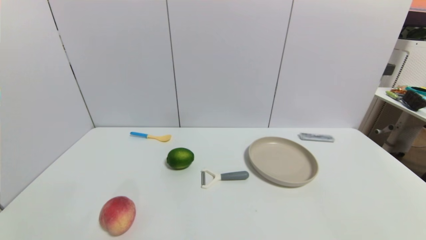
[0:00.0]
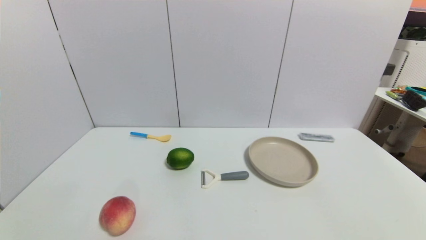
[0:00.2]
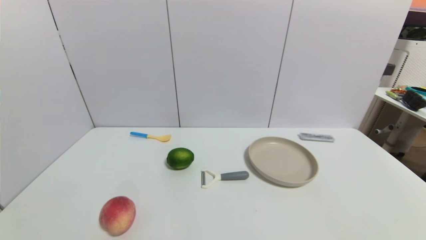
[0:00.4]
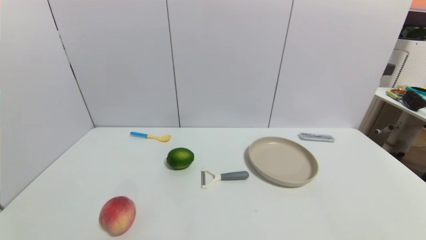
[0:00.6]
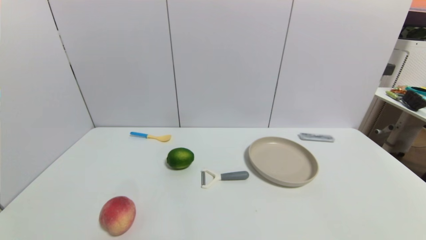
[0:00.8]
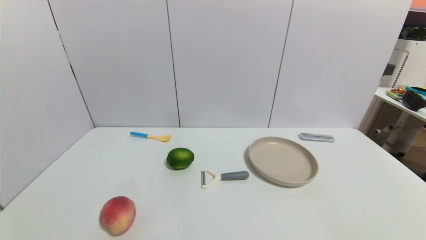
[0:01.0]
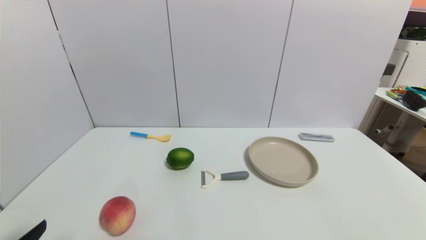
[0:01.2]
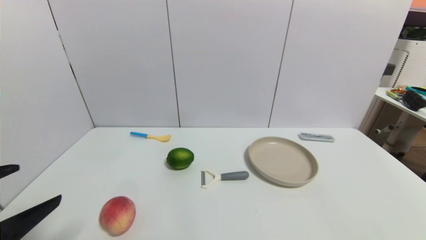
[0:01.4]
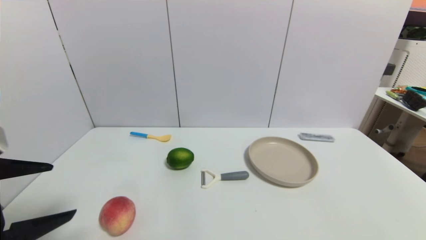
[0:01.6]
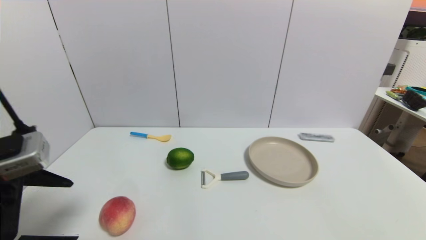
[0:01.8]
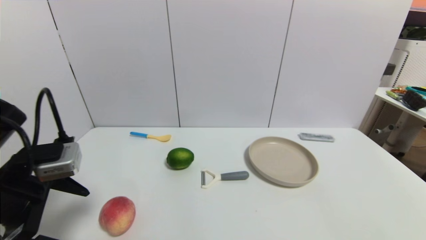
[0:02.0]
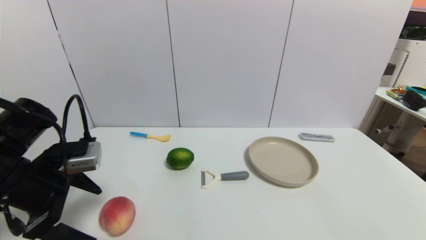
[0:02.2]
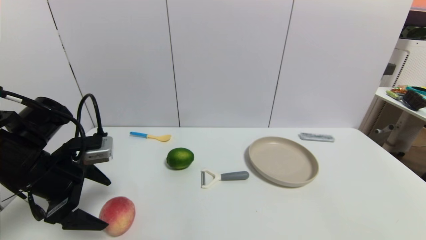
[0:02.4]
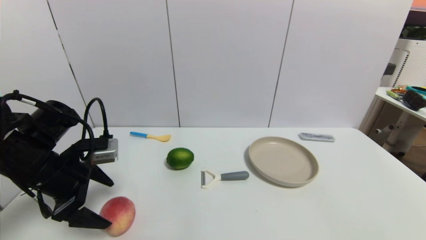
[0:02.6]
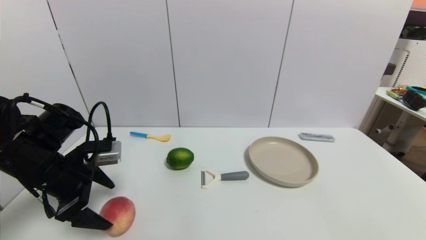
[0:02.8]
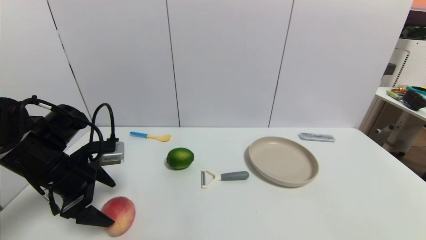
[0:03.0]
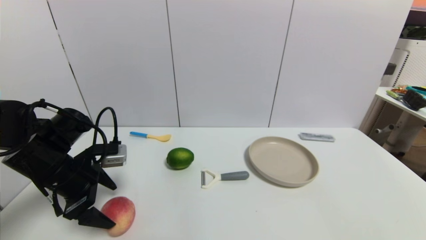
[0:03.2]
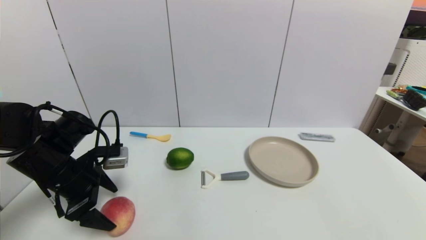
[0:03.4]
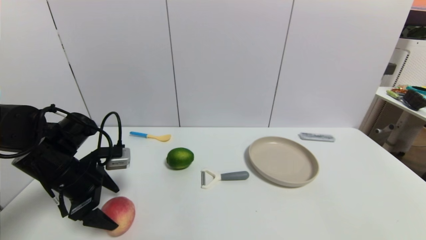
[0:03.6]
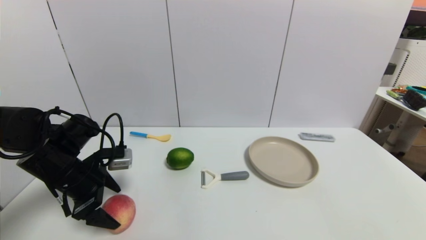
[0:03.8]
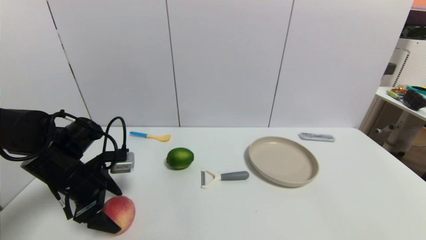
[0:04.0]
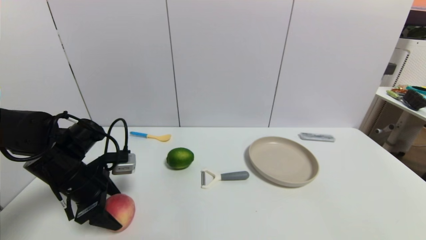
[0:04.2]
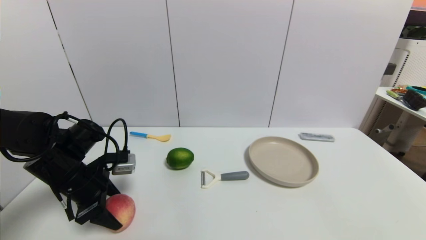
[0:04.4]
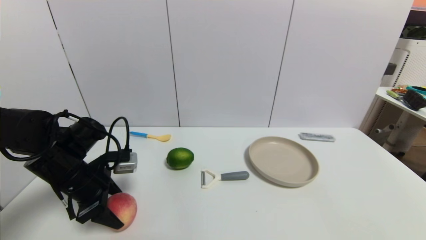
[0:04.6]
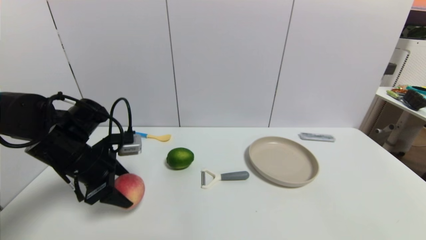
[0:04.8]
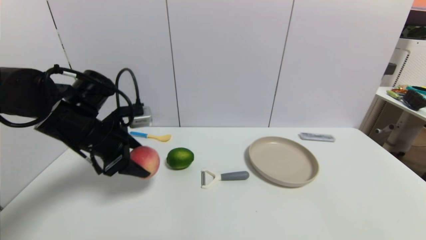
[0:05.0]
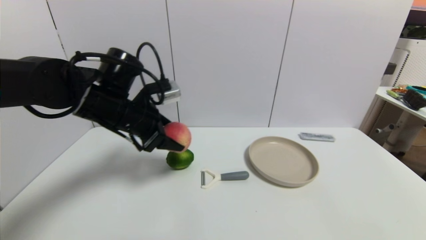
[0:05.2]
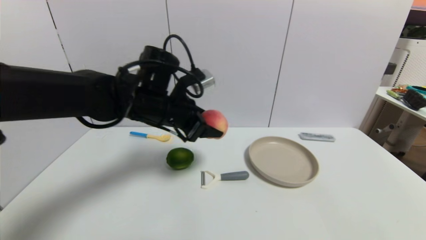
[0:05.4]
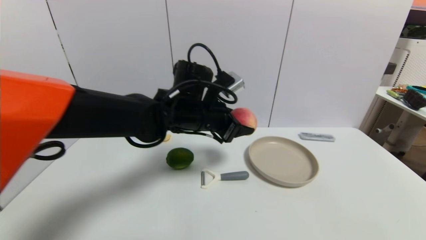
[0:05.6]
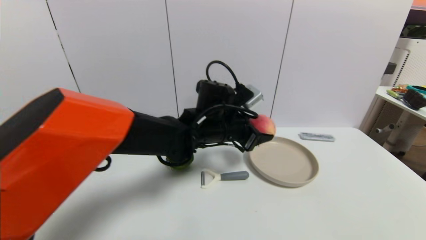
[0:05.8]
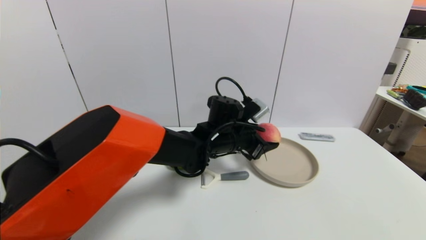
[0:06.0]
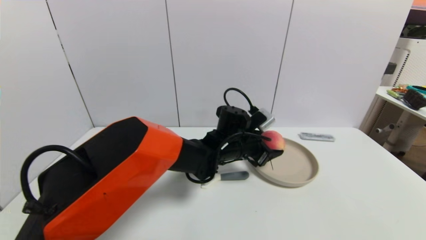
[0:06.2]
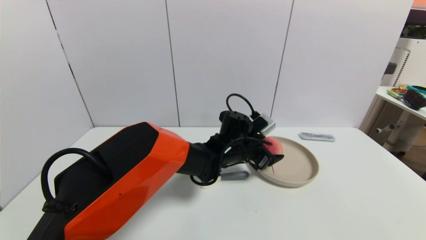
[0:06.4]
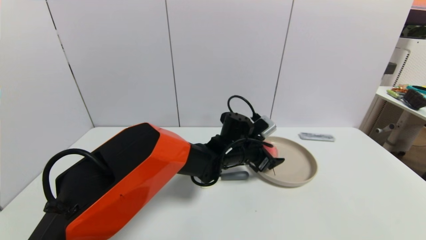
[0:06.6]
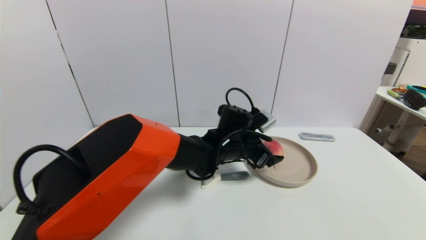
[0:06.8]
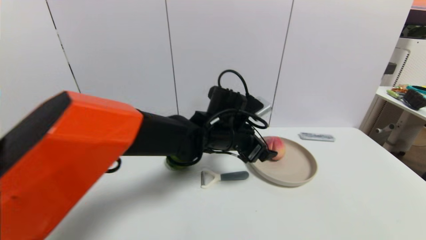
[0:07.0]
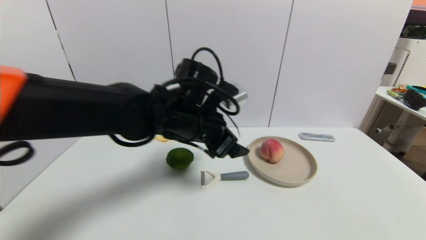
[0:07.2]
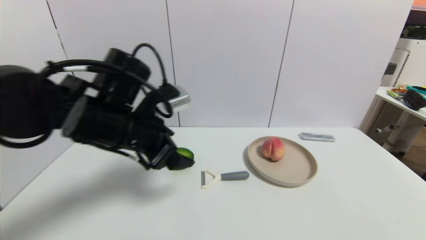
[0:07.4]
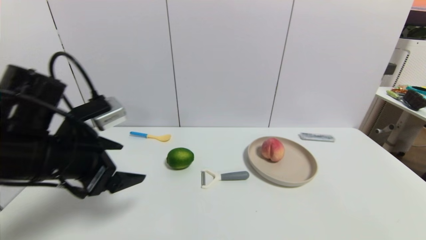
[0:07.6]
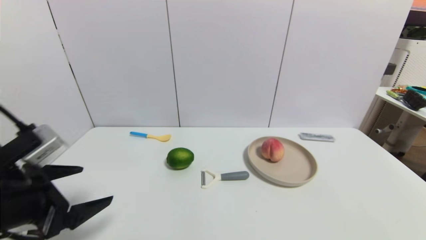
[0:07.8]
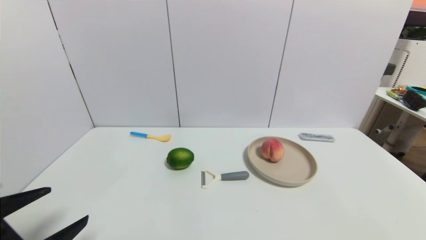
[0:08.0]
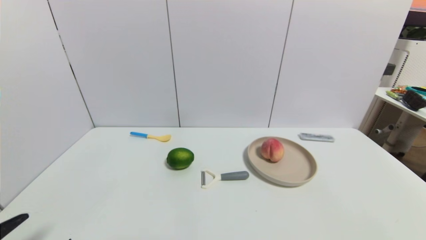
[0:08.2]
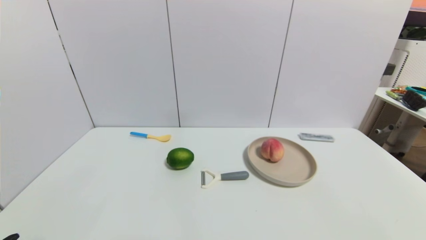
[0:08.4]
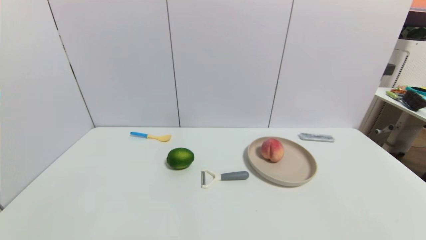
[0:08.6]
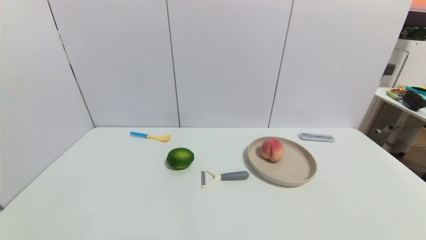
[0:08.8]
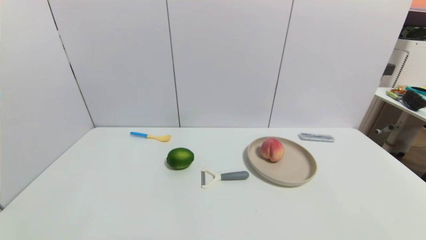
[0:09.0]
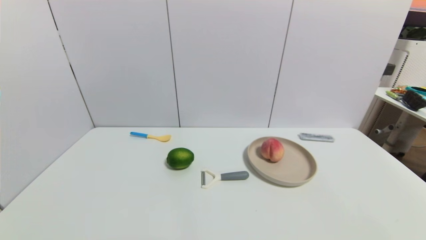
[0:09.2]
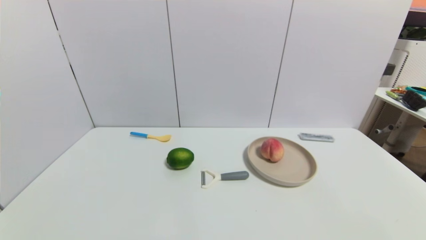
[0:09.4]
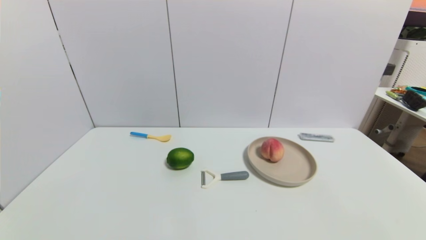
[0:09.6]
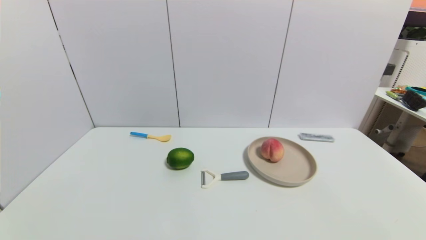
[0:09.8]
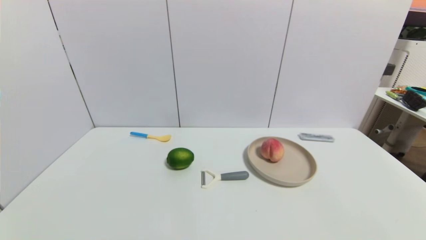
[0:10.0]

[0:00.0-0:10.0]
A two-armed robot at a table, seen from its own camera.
Task of the whole recording: use a gripper to pick the target object and place on the brown plate.
Step, 0:00.0 to 0:04.2: Grasp the peach with the left gripper.
Step, 0:04.4 to 0:06.8: Place the peach on the brown plate with the left gripper.
0:00.0 to 0:01.4: The left gripper shifts approximately 20 cm upward and forward.
0:01.4 to 0:02.8: The left gripper goes about 15 cm forward.
0:02.8 to 0:04.2: The left gripper closes.
0:04.2 to 0:05.8: The left gripper shifts roughly 30 cm to the right.
0:05.8 to 0:07.2: The left gripper moves to the left, upward and backward, about 10 cm, and opens its fingers.
0:07.2 to 0:08.6: The left gripper travels backward, to the left and downward by roughly 40 cm.

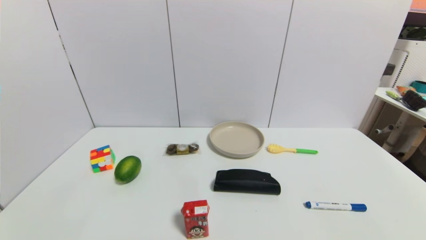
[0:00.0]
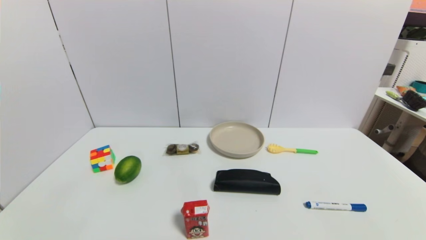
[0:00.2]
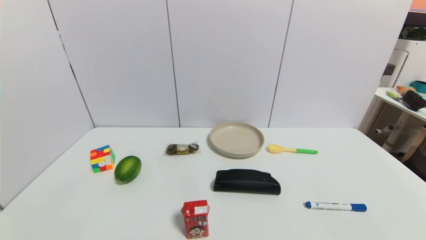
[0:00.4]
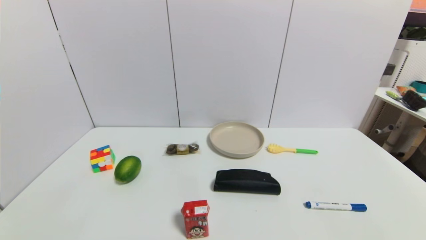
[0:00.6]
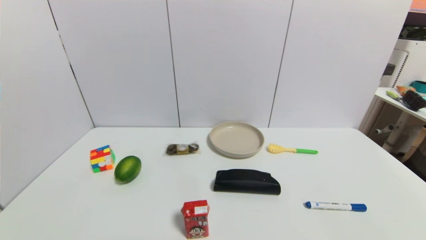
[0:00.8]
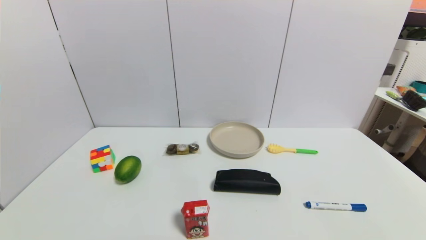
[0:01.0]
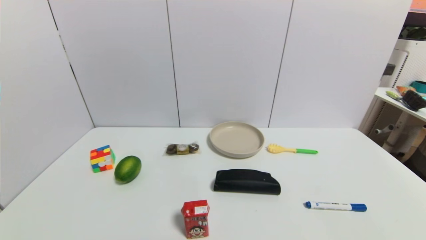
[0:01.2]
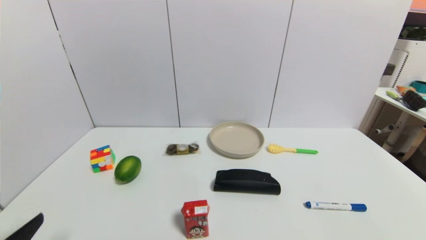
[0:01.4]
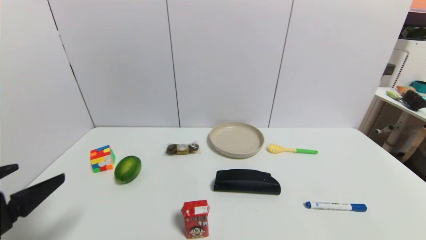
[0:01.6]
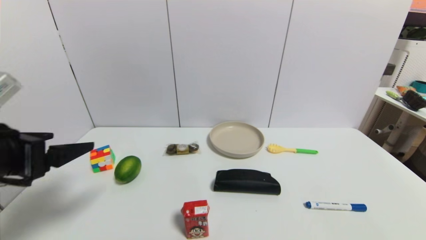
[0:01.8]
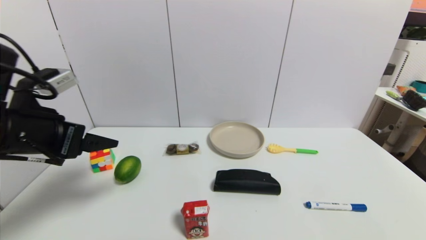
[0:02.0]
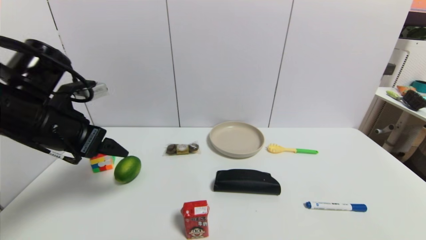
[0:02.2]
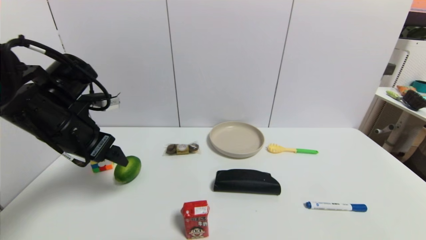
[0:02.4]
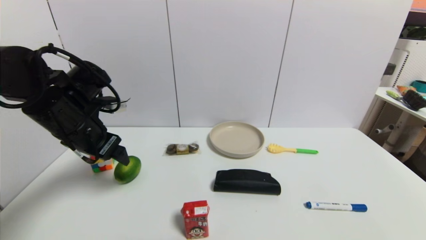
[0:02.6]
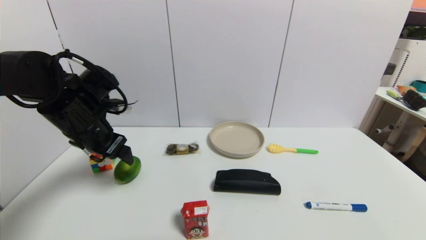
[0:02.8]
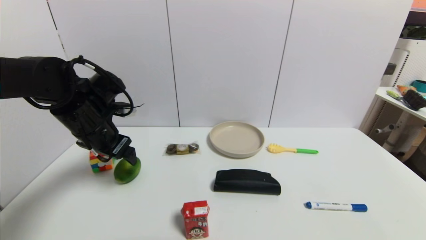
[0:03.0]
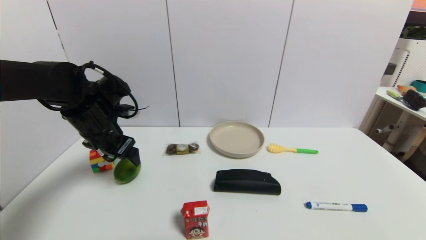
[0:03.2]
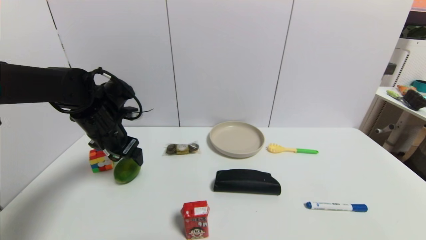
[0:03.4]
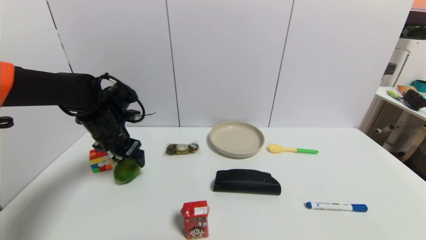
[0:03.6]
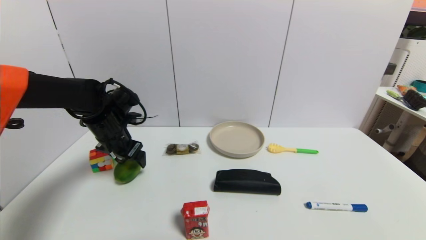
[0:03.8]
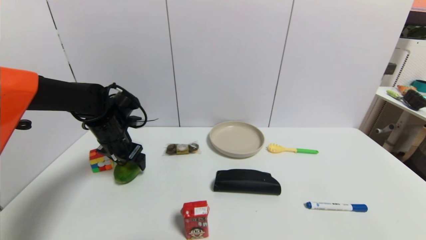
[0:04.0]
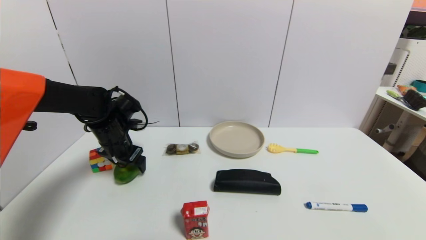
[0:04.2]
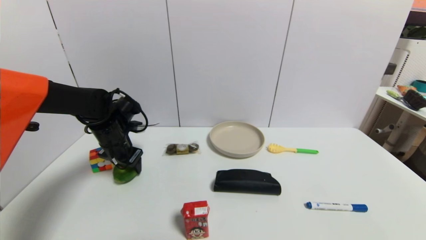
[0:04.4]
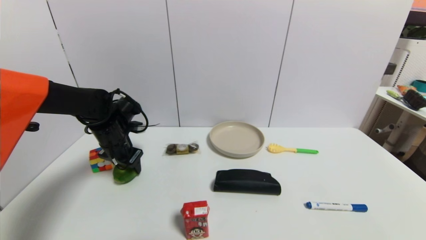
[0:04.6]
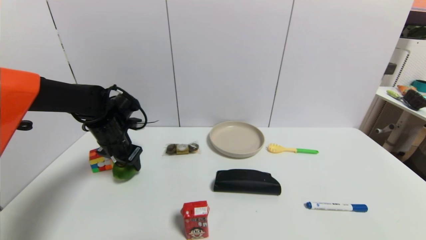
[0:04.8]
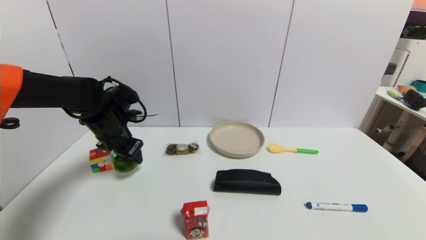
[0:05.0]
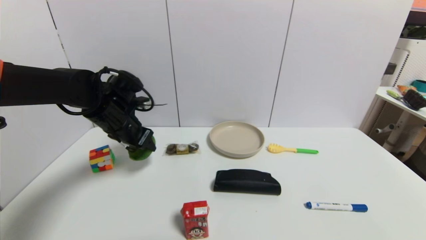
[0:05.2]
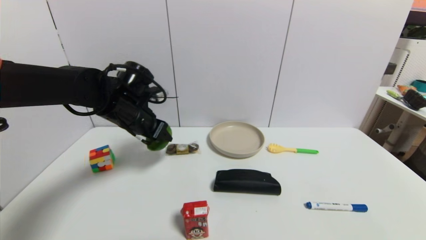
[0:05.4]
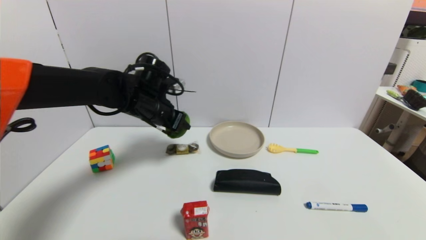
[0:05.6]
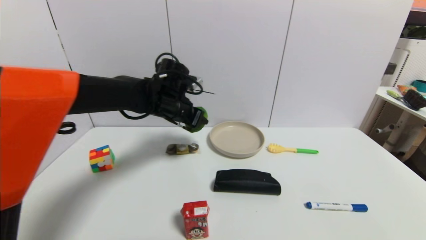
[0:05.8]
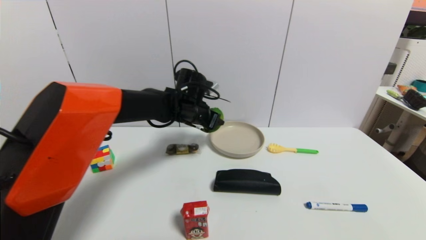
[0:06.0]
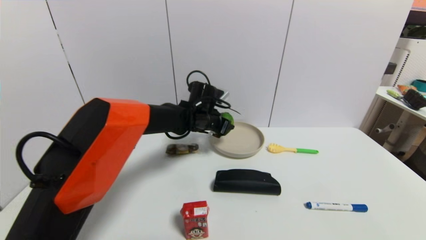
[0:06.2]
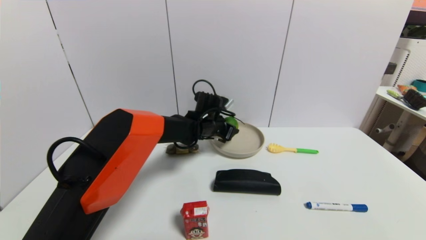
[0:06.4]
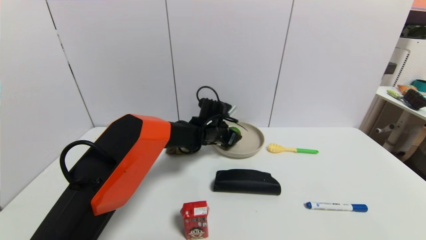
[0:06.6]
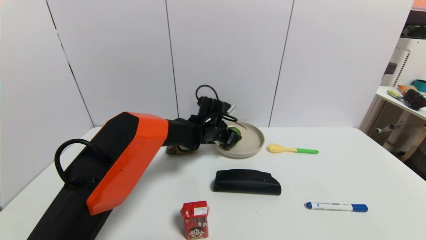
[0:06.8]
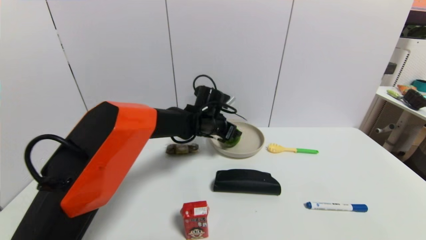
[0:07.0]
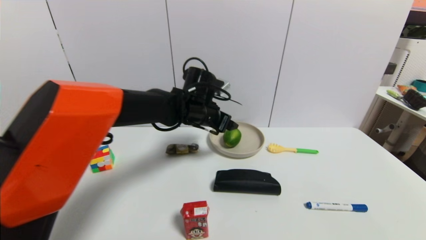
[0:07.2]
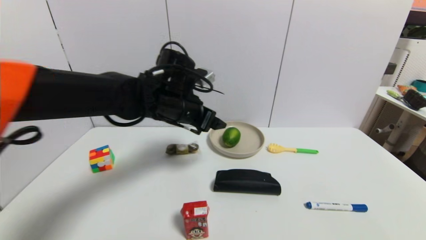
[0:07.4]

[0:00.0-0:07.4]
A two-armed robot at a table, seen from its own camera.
Task of the whole recording: use a gripper to pick the target object and place on the brown plate.
Step, 0:00.0 to 0:04.4: Grasp the green lemon with the left gripper.
Step, 0:04.6 to 0:06.8: Place the green lemon on the brown plate with the left gripper.
0:01.4 to 0:03.0: The left gripper travels forward by roughly 30 cm.
0:03.0 to 0:04.4: The left gripper moves downward and forward, about 10 cm, and closes its fingers.
0:04.4 to 0:06.0: The left gripper goes roughly 20 cm to the right.
0:06.0 to 0:07.4: The left gripper shifts roughly 10 cm backward and upward, and opens.
